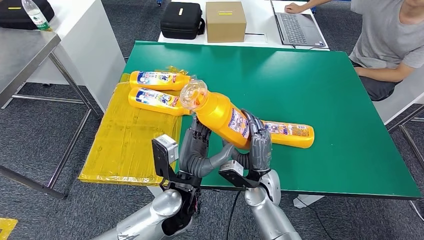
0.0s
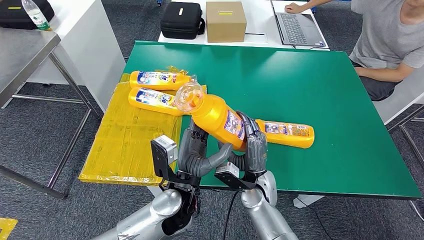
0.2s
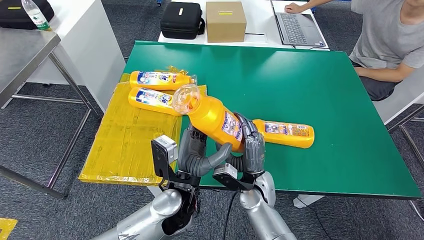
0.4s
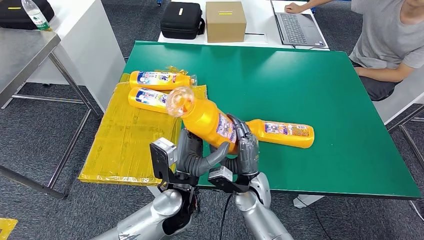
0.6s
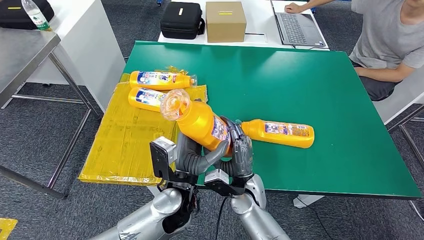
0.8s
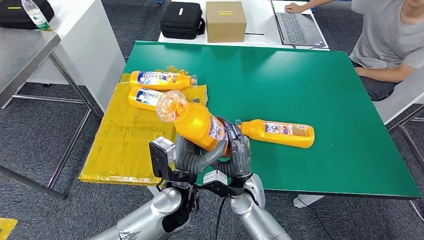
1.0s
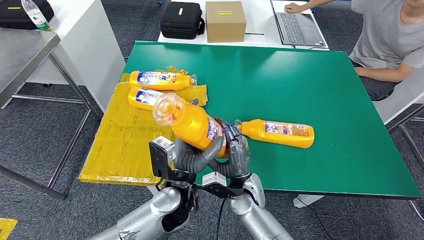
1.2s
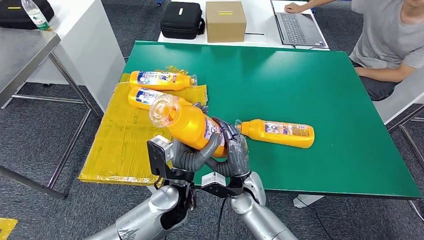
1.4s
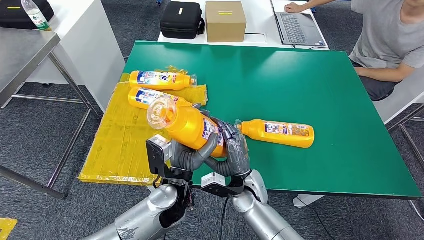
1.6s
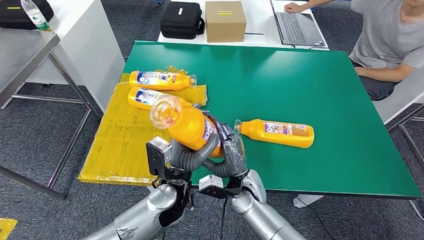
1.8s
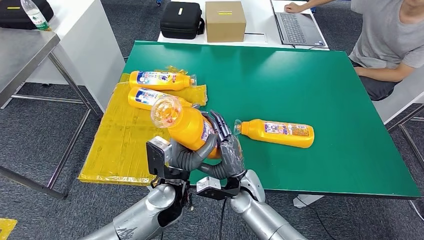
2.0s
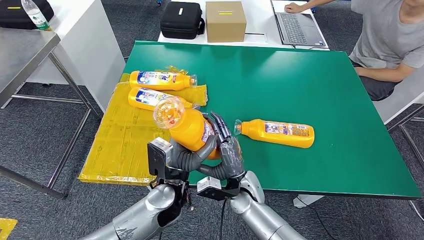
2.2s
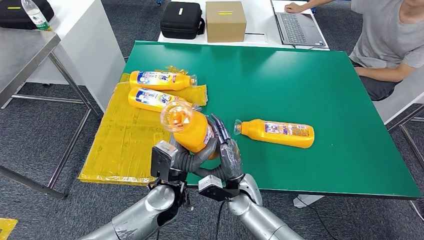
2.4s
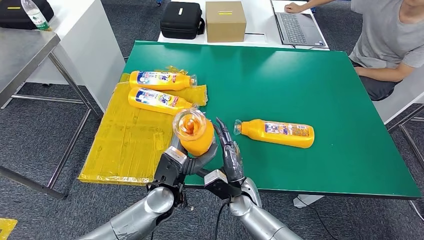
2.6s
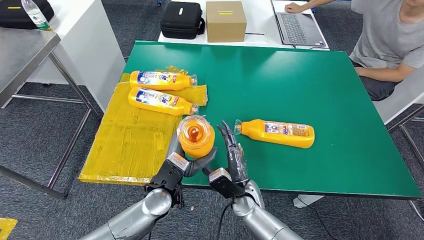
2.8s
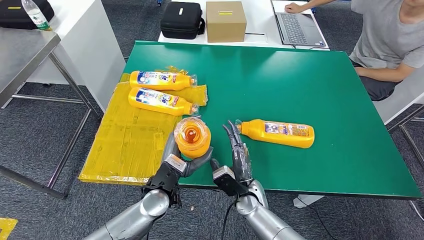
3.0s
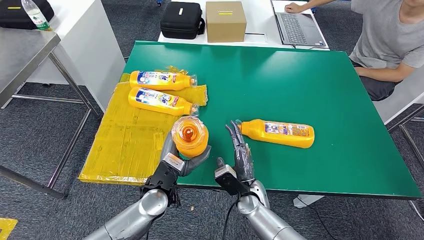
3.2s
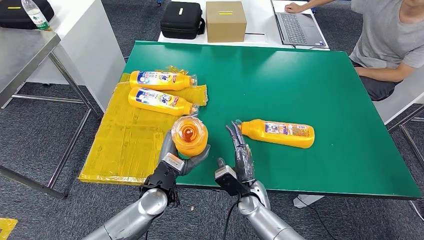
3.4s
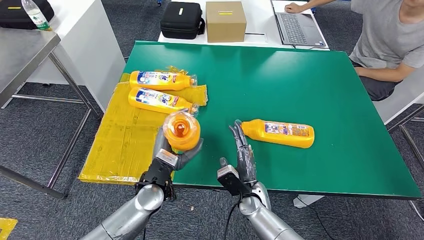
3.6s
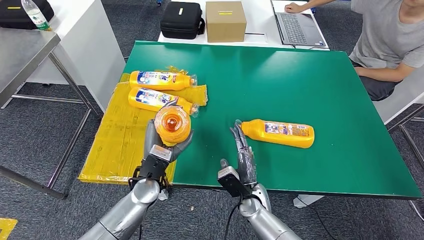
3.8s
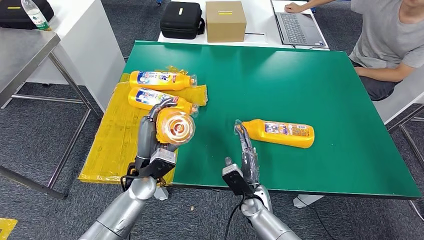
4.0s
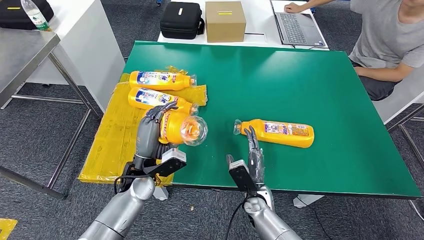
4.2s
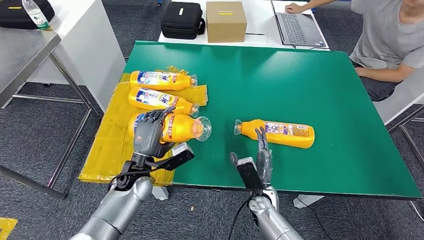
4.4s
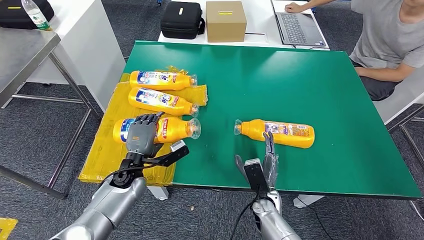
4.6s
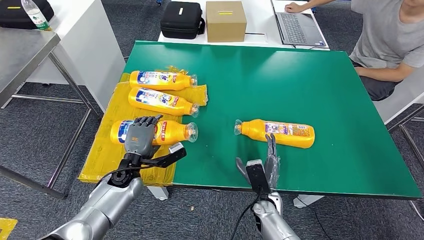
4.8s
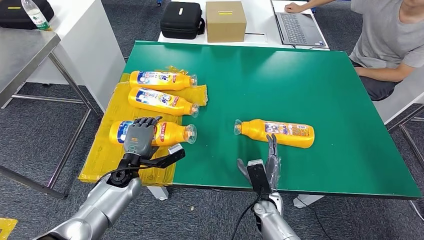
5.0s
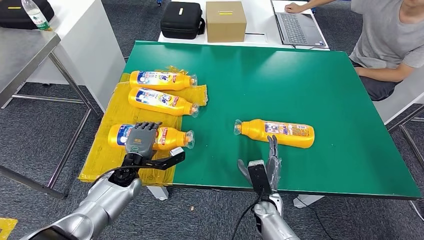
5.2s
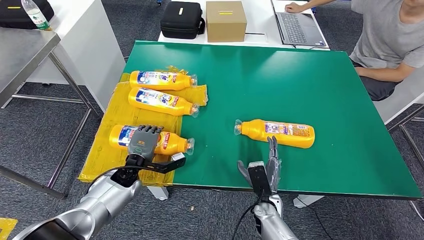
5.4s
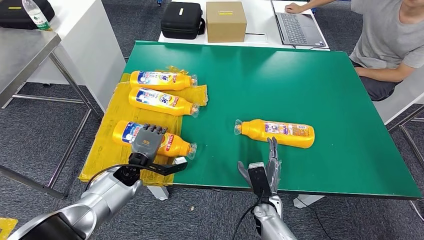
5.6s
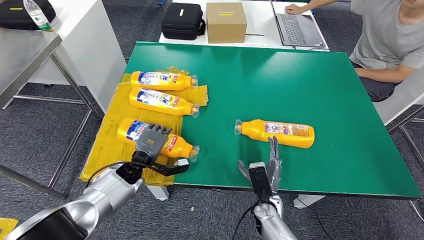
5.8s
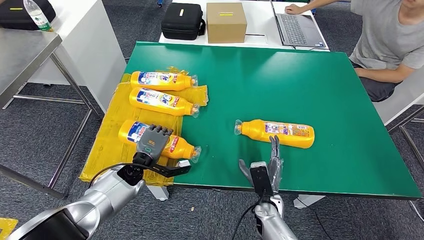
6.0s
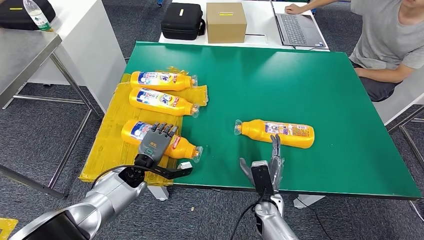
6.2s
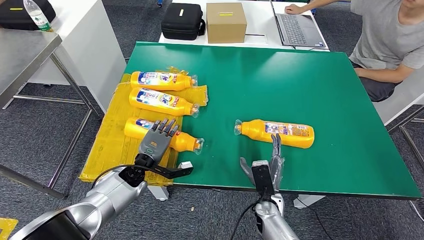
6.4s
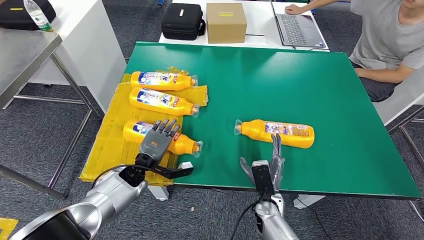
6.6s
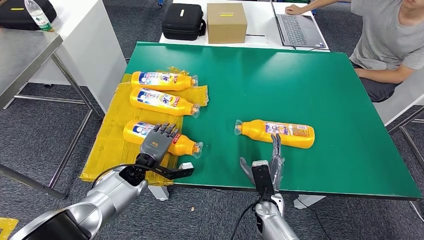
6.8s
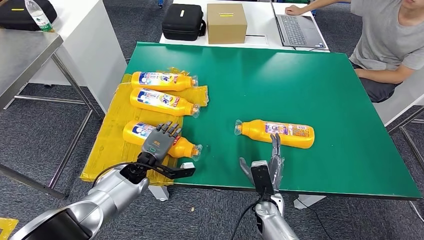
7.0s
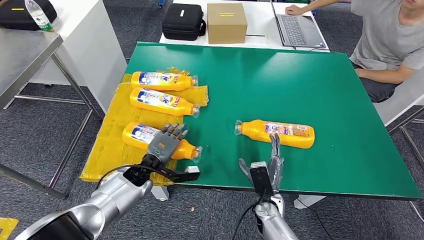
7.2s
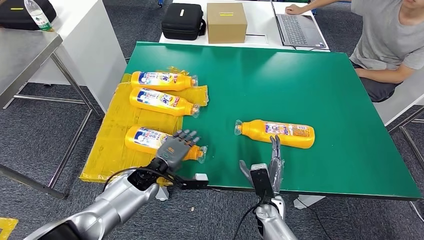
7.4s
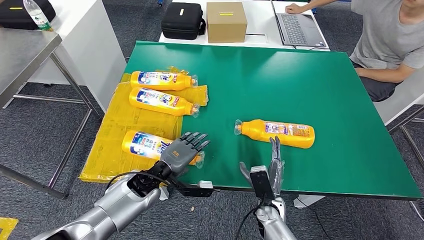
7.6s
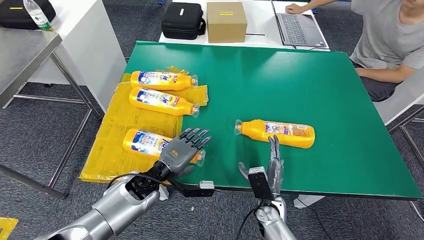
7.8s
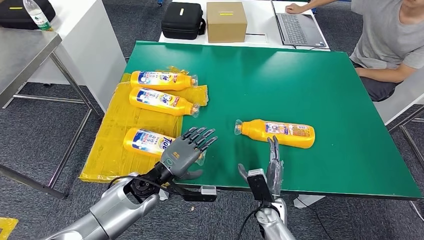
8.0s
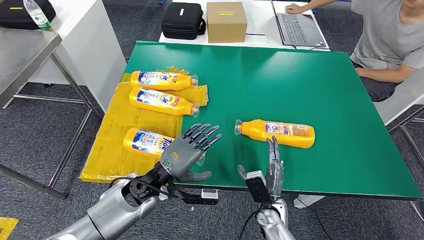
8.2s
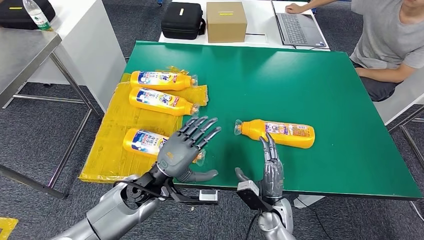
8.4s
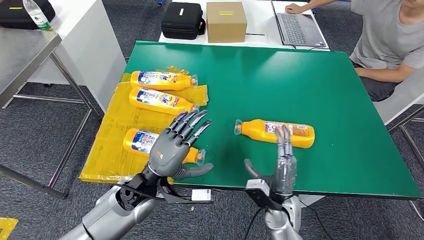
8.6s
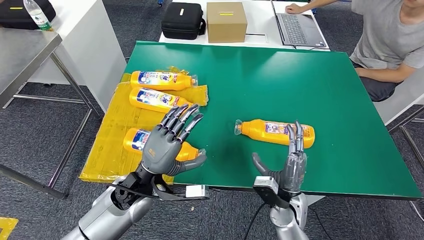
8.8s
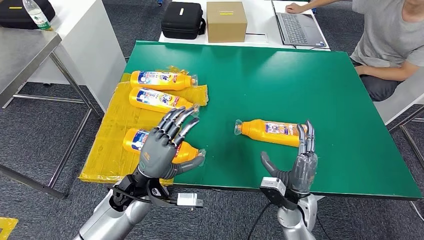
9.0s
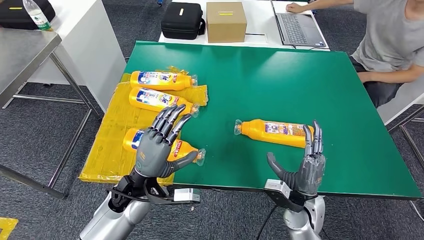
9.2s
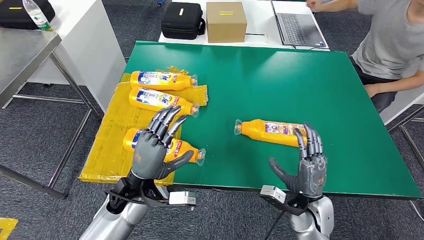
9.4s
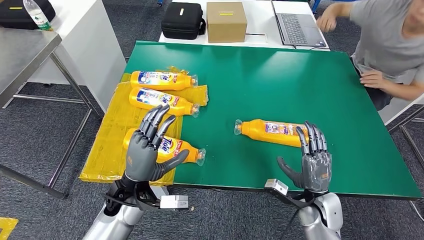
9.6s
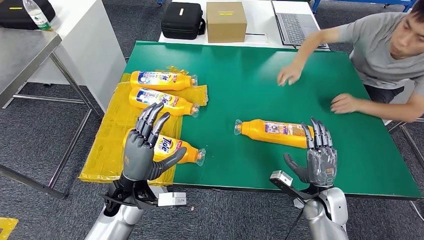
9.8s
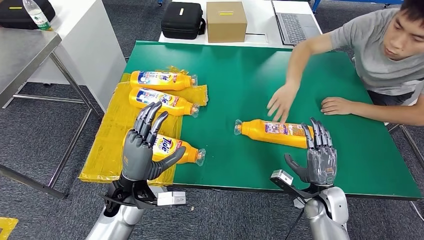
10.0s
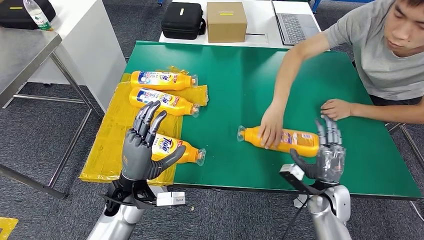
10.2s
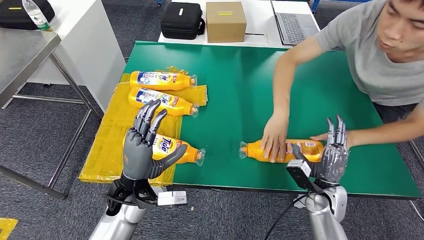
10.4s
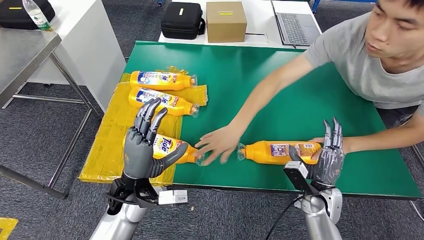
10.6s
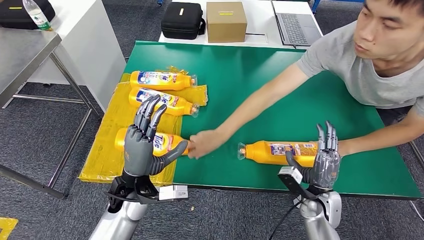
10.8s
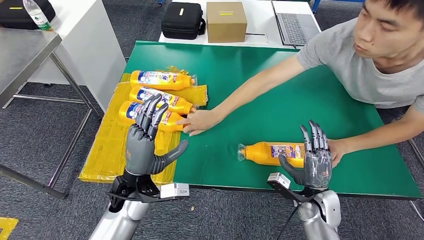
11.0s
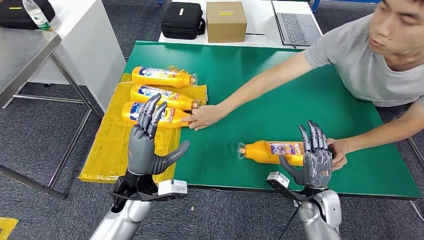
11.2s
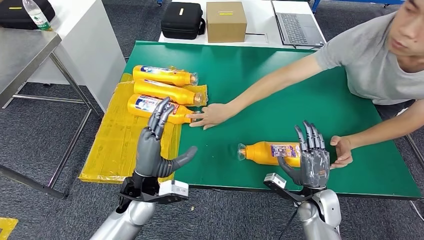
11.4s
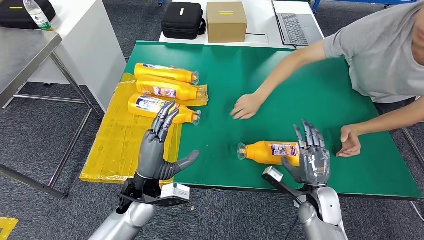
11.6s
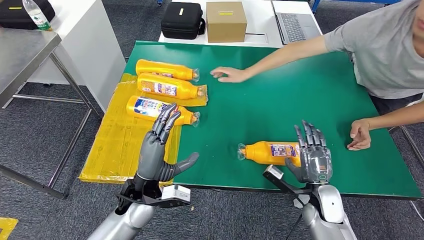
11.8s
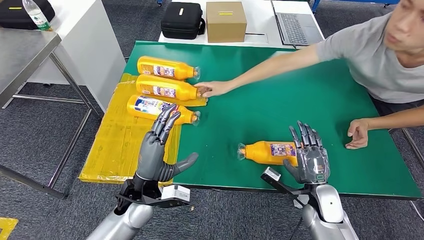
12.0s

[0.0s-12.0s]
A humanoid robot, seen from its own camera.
Step, 0.0s to 5.4s: Flip the fast-moving consumer goods bottle to the front side.
0.0s to 1.6s: The hands move only a little.
1.6s to 3.0s: The left hand changes place by approximately 5 cm. Meanwhile the right hand moves some 5 cm.
3.0s to 4.4s: The left hand heads to the left, covering some 10 cm.
4.4s to 6.0s: The left hand travels downward by some 5 cm.
6.0s to 7.6s: The left hand shifts by roughly 5 cm.
7.6s to 9.0s: The left hand travels upward by some 5 cm. The right hand moves upward and to the right, about 10 cm.

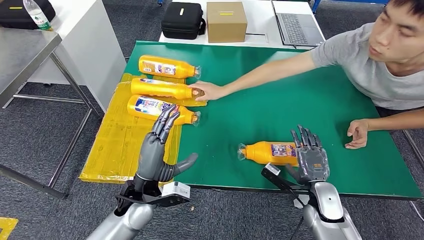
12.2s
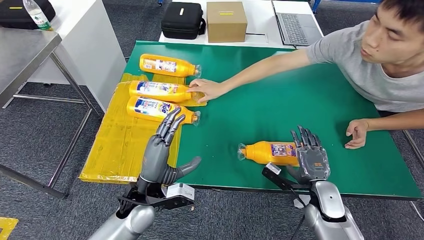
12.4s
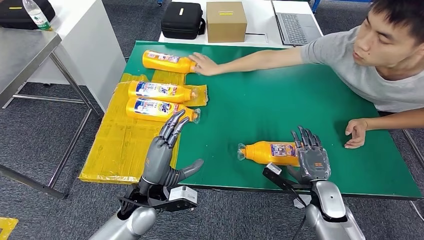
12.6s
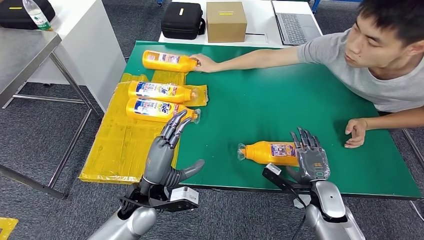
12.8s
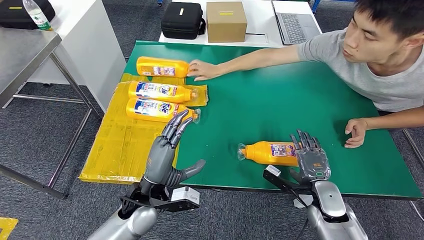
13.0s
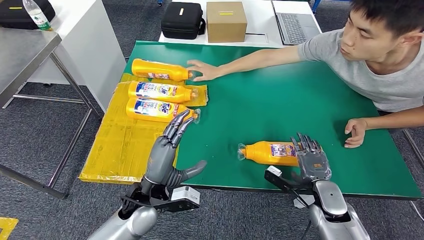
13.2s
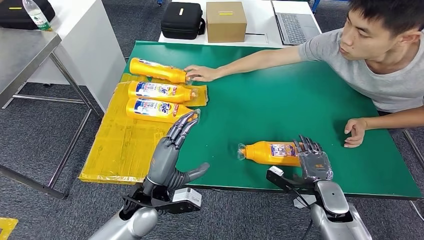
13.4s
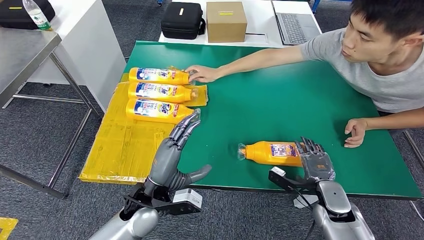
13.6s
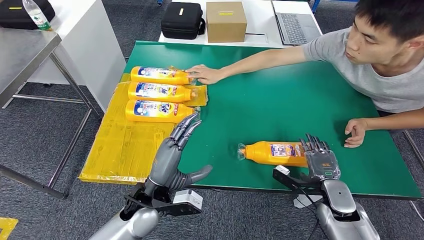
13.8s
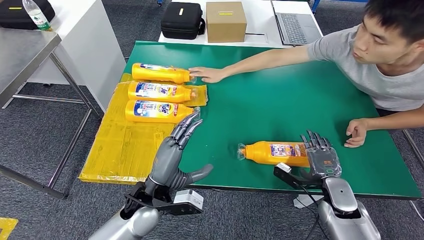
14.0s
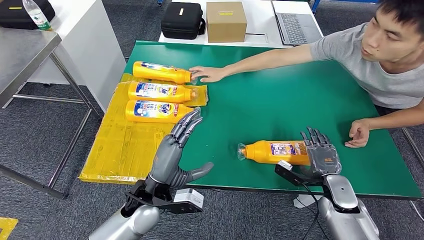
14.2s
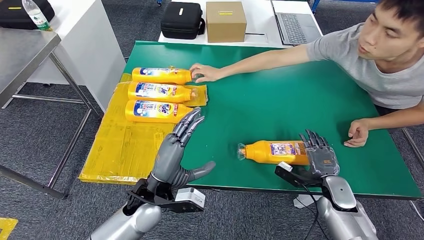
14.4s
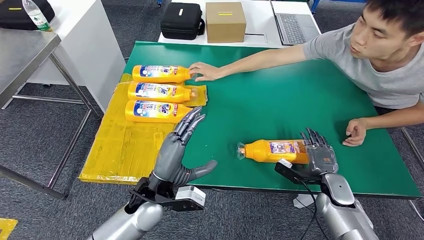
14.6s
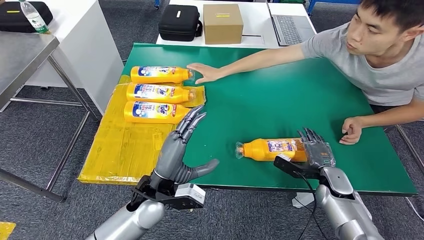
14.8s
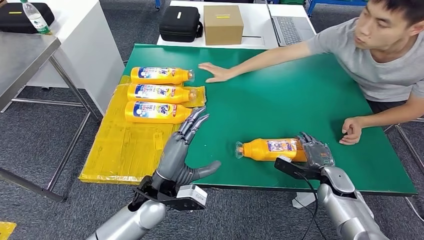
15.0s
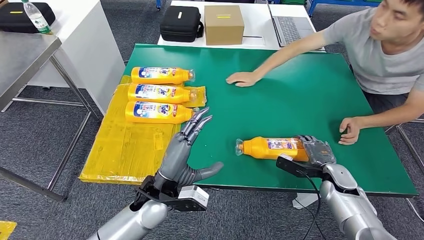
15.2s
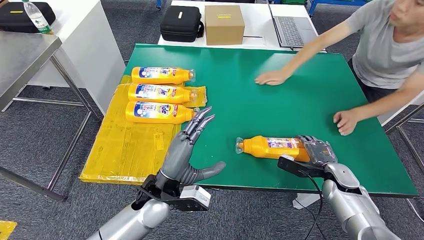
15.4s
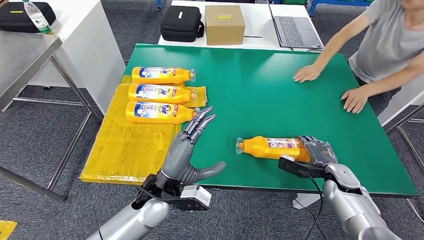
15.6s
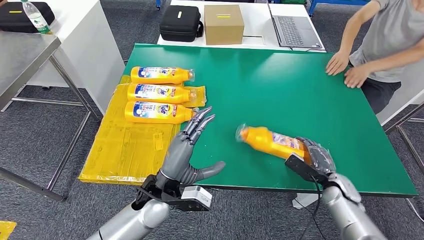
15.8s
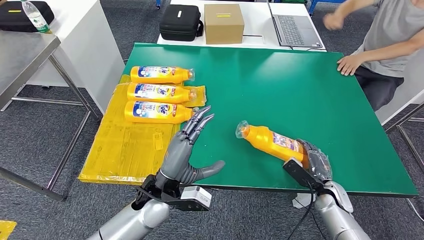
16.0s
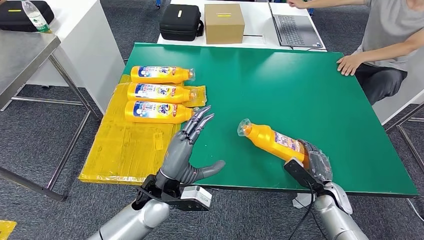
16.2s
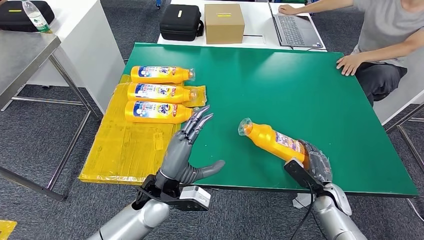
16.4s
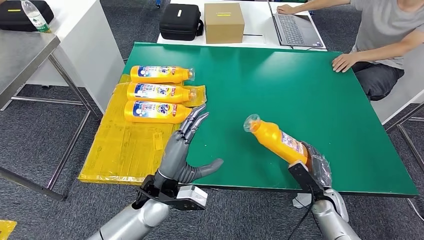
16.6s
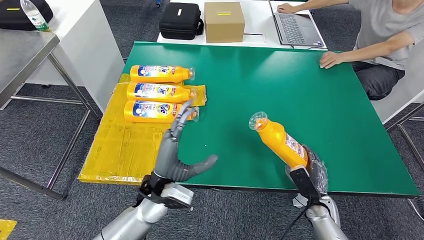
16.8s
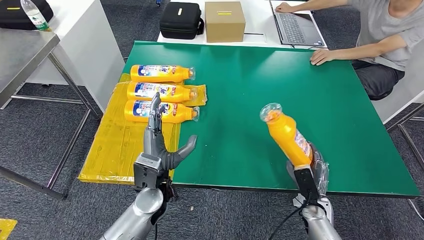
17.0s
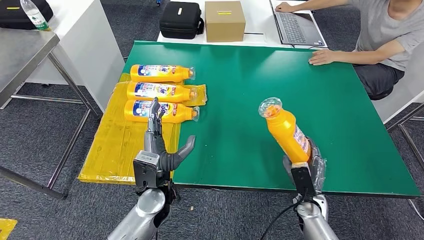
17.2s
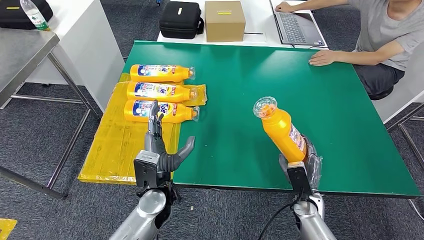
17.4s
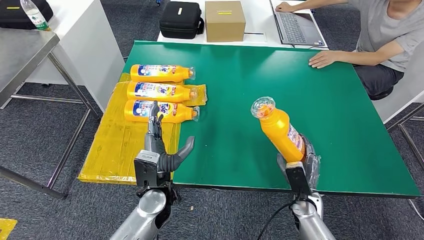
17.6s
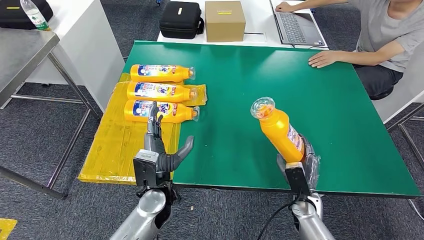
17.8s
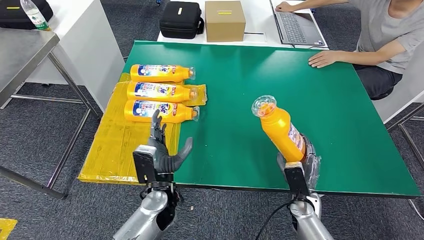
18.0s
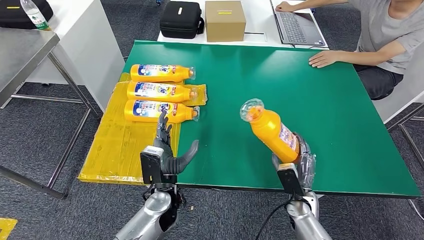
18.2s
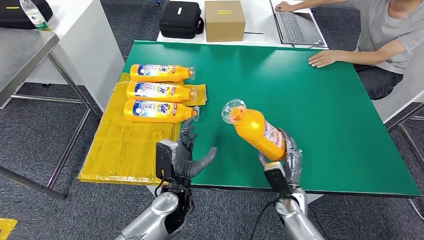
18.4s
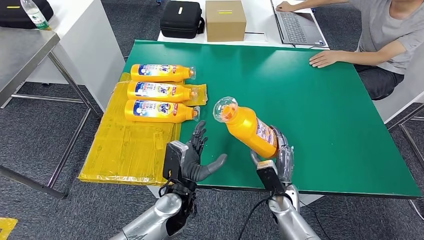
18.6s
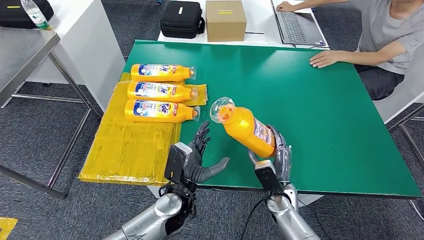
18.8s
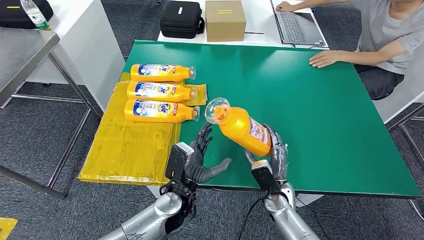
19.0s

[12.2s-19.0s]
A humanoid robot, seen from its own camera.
17.6s to 19.0s: The left hand is displaced to the right by approximately 5 cm, while the right hand is displaced to the left by some 10 cm.
